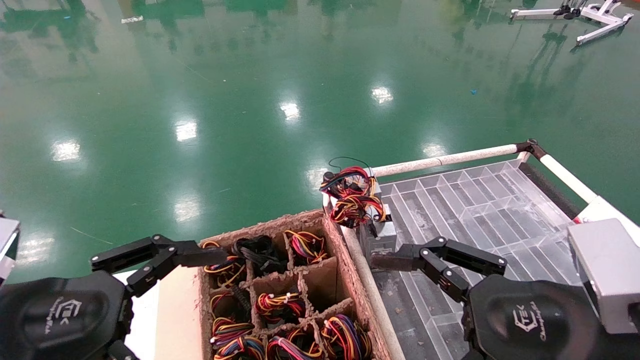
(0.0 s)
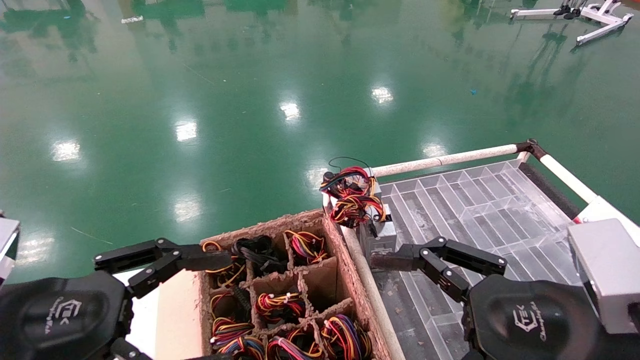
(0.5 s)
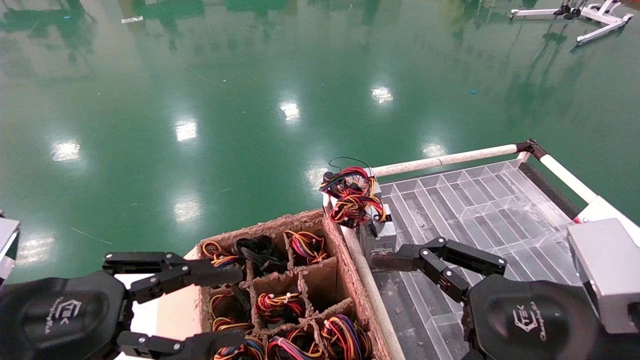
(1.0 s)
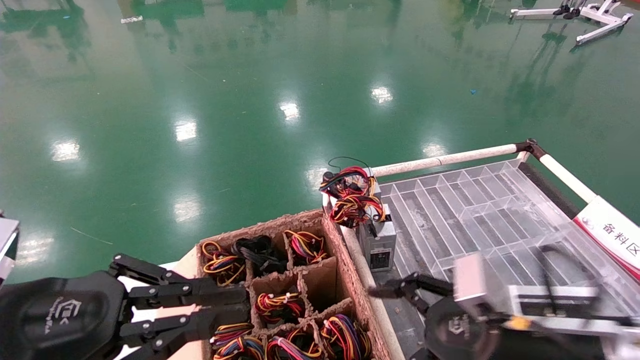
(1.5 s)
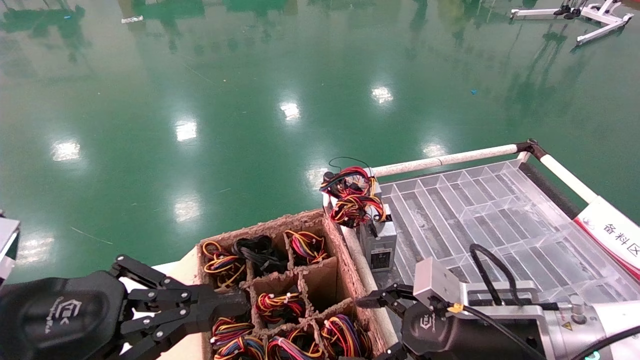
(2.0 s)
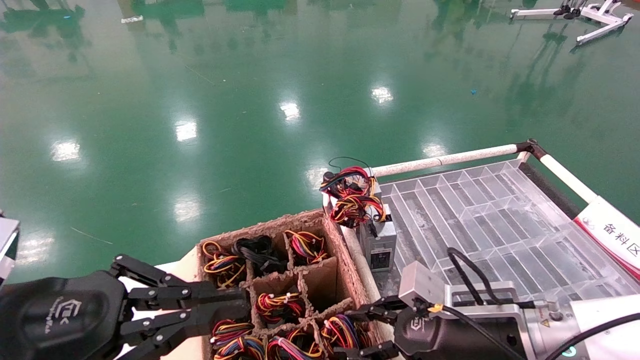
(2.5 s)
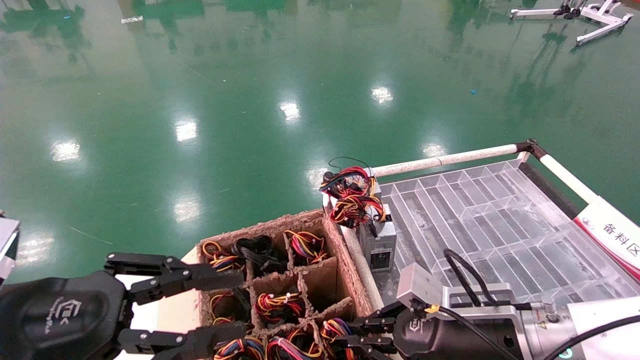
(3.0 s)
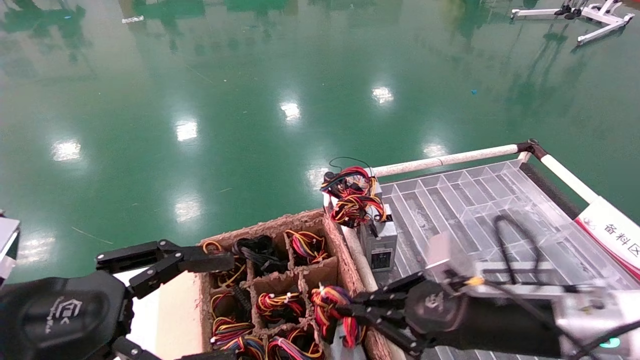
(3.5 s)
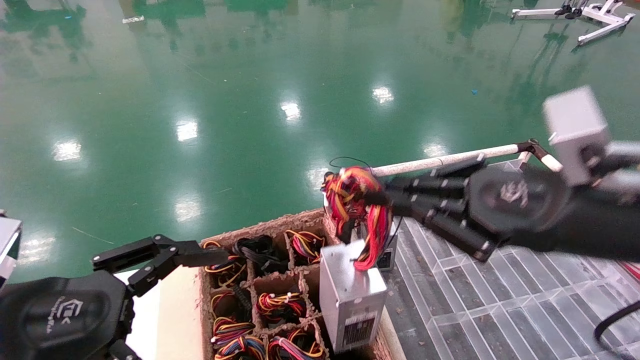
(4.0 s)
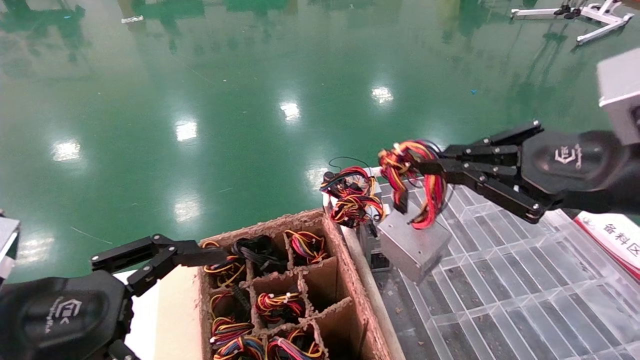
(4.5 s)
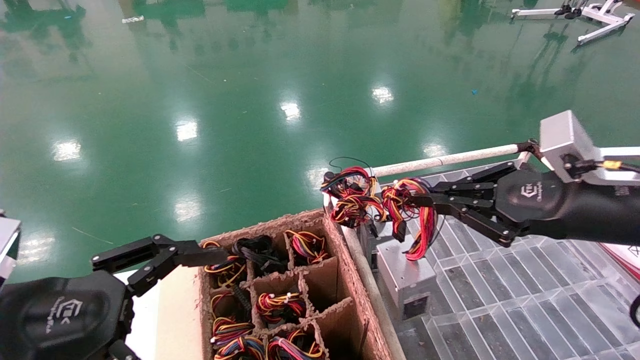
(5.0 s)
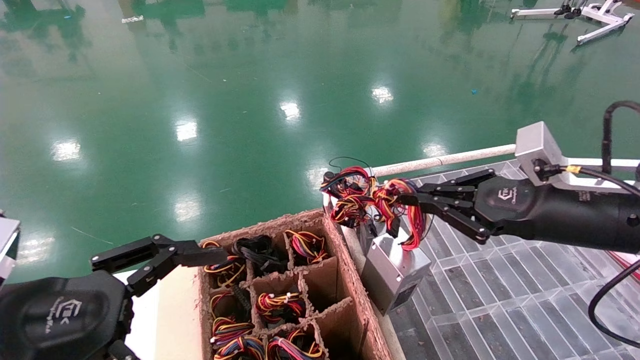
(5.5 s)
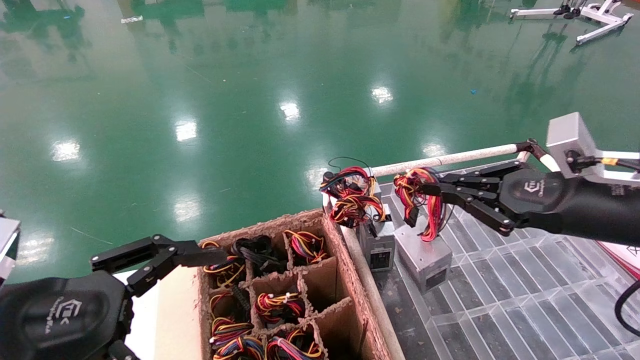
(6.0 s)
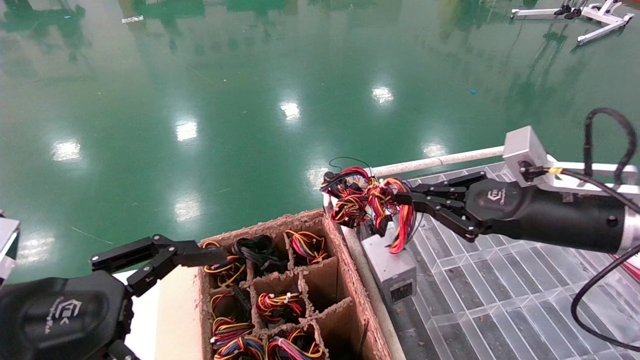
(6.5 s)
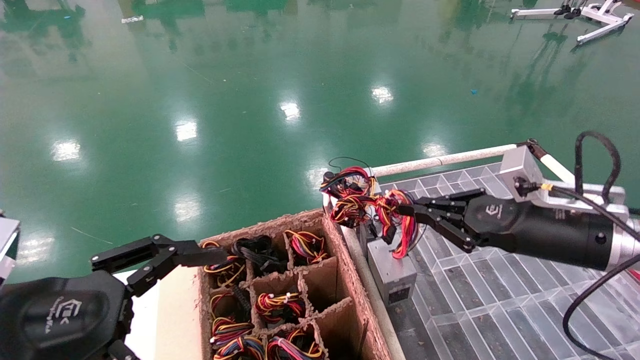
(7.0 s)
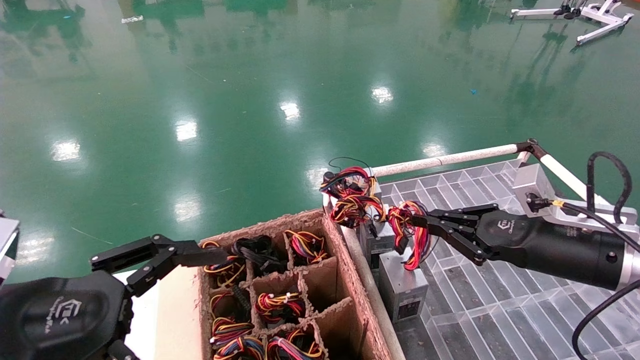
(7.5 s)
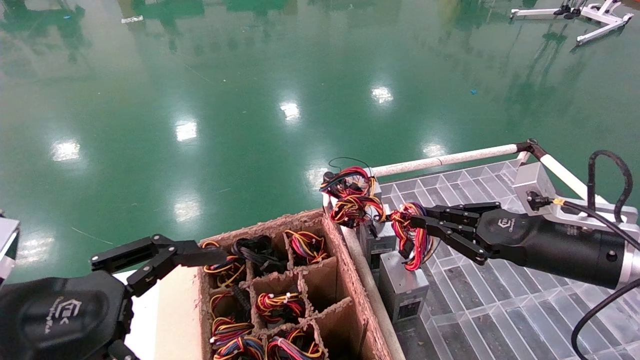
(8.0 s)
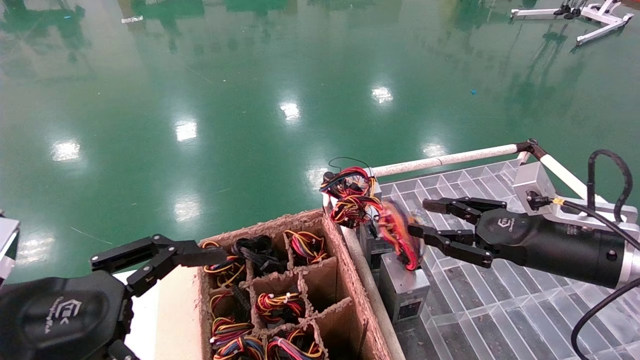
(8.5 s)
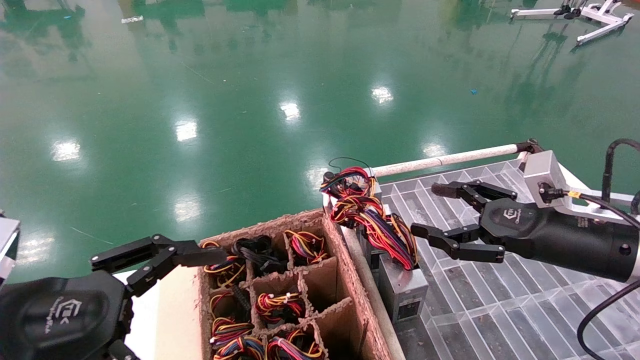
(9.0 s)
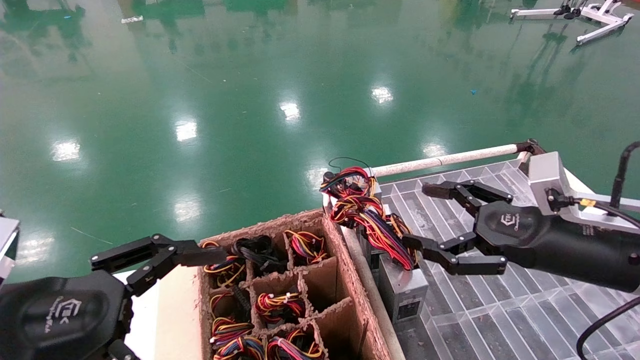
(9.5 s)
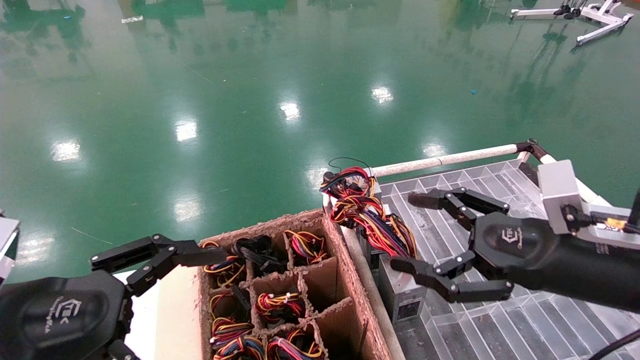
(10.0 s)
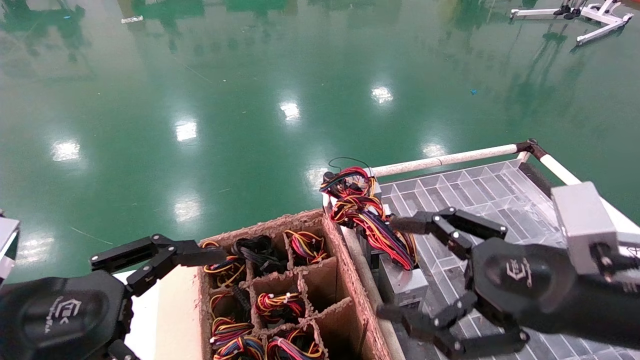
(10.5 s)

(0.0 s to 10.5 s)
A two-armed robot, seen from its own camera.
Step, 1.0 s - 3.0 s: Grab and lift the power supply from the large box.
Step, 3.5 s - 8.0 s: Place the power supply on the operating table.
0.0 s - 2.0 s: The left gripper closes. Meanwhile the right gripper goes roughly 15 cm forward and downward.
2.0 s - 4.0 s: The right gripper heads upward, covering some 15 cm, and closes up, while the left gripper opens its fingers.
4.0 s - 6.5 s: The right gripper goes approximately 10 cm forward.
6.5 s - 8.5 s: The right gripper shifts by approximately 5 cm, and opens.
8.5 s - 10.5 s: The right gripper is displaced backward and to the left by about 15 cm, and opens up.
